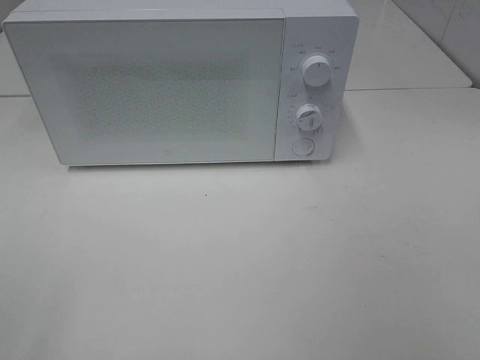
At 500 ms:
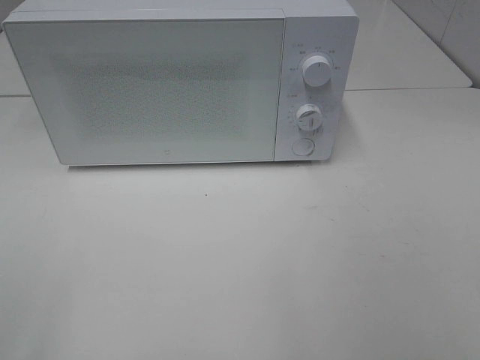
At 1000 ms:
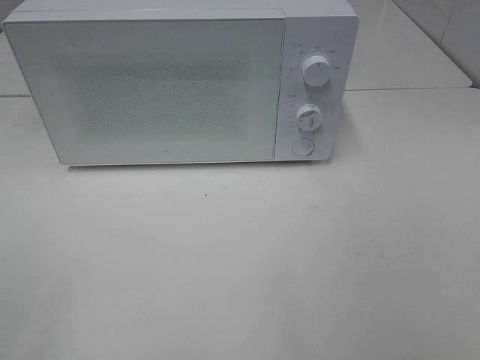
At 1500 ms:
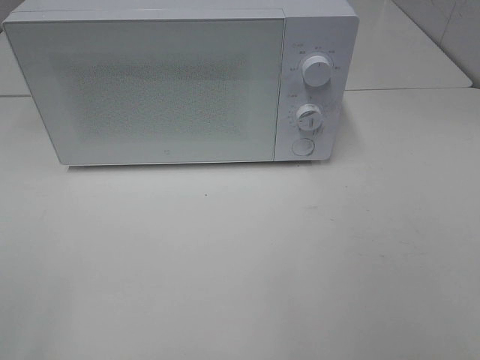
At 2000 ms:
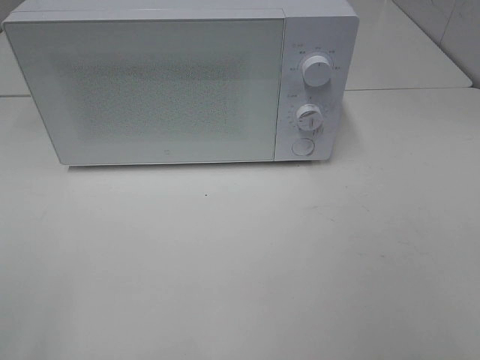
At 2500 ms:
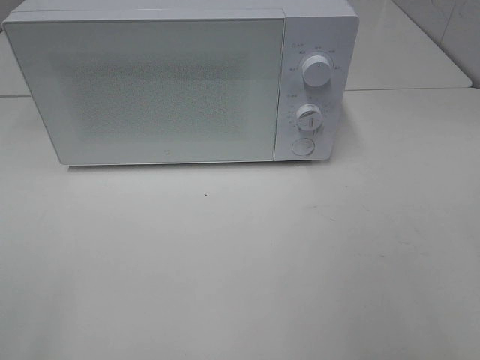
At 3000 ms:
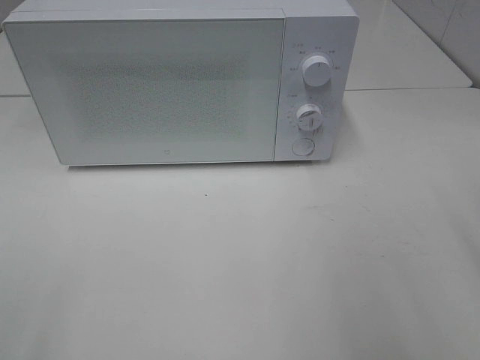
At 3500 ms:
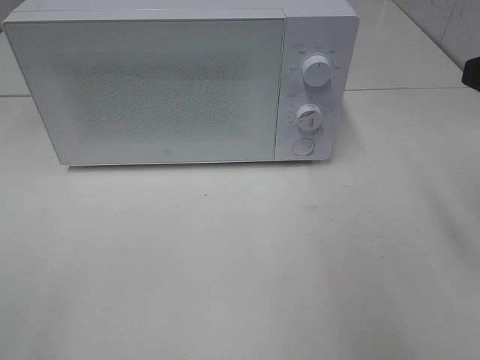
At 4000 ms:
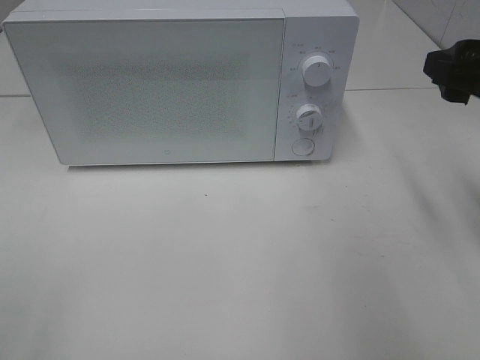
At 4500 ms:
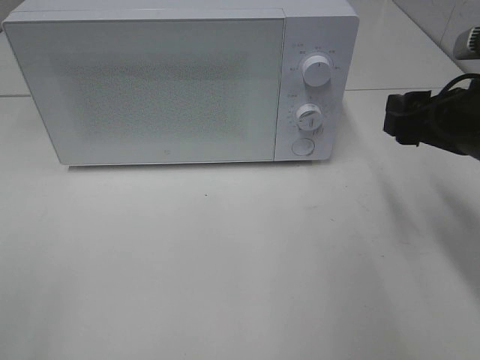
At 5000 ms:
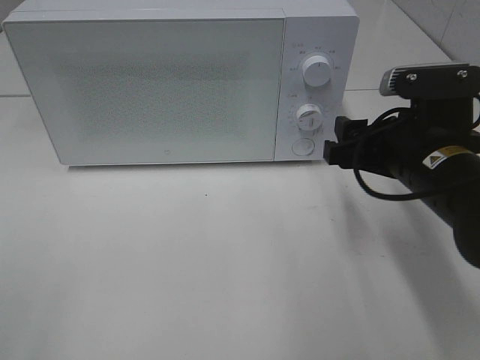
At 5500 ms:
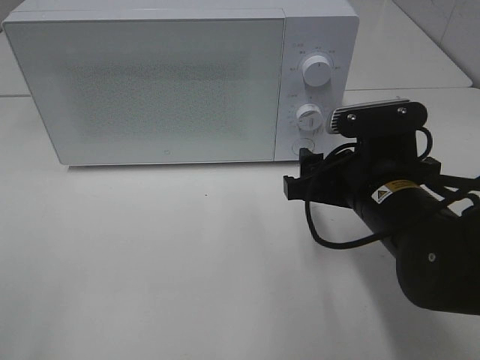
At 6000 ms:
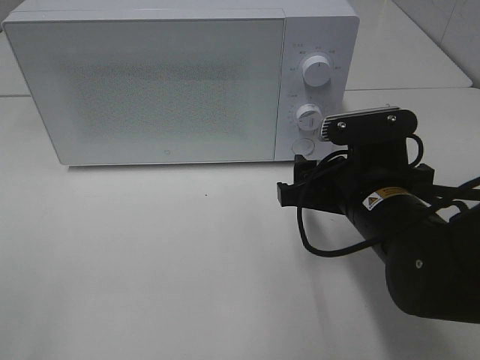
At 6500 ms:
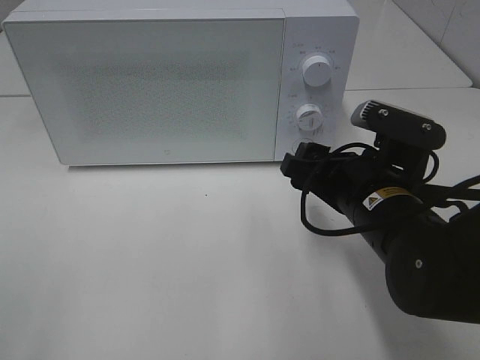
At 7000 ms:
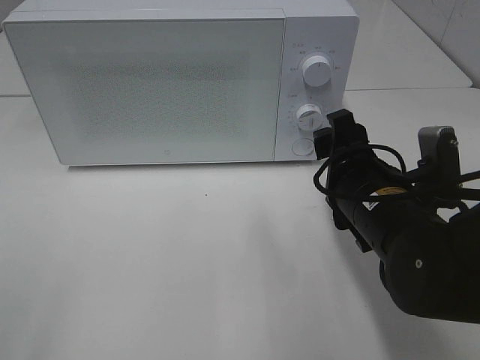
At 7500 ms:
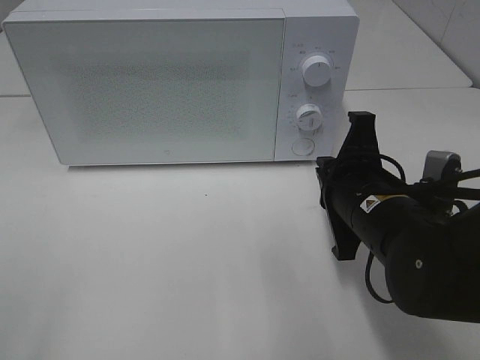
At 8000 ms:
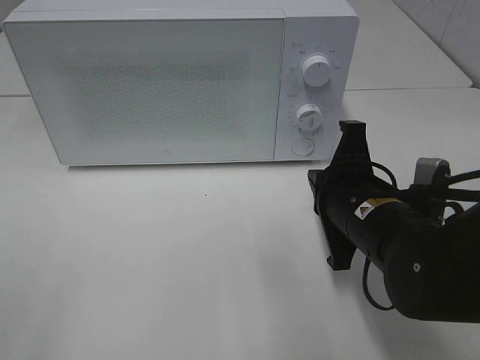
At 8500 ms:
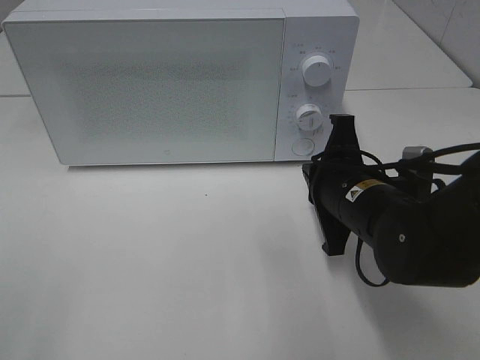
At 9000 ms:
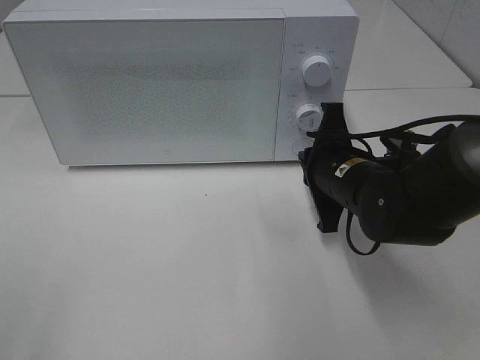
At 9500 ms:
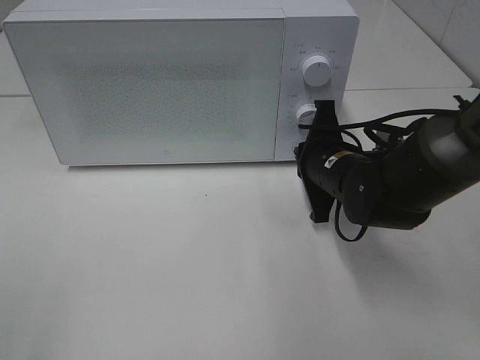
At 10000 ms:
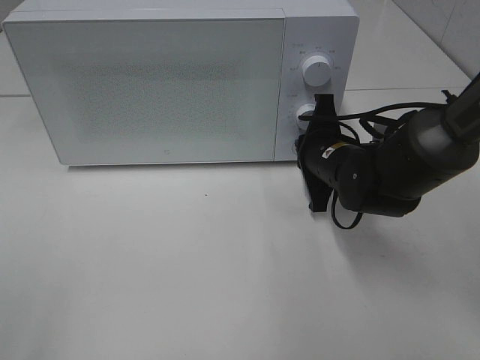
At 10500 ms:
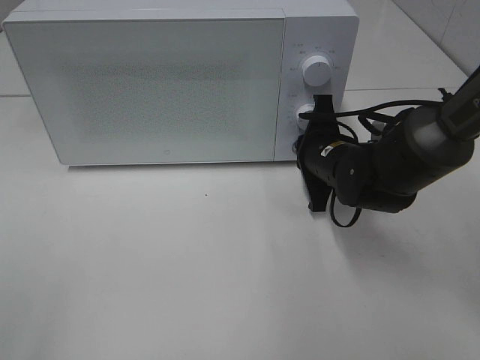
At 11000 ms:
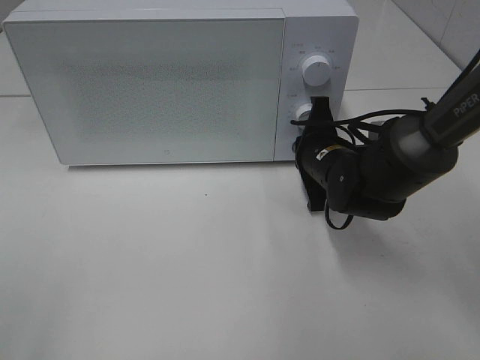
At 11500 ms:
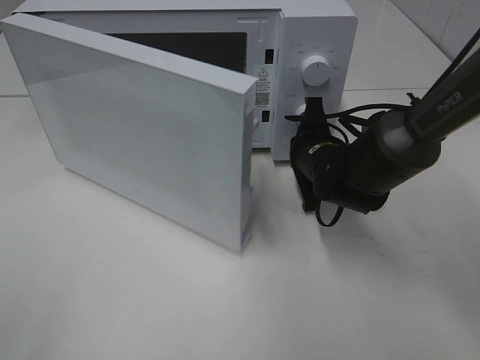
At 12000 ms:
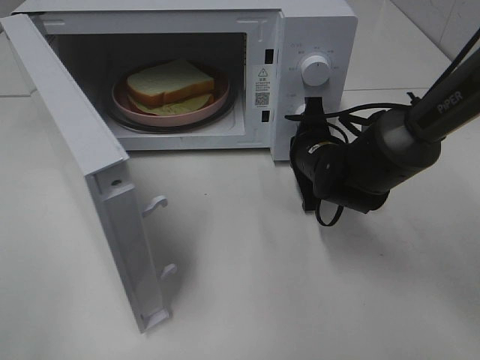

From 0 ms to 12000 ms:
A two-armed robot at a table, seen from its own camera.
Task of the whole recording: Heat Sandwich.
From 2000 ms to 4000 ms: The right gripper heads forward, covering roughly 20 cm.
From 4000 ms to 6000 ms: The right gripper is displaced to the left and downward by roughly 15 cm.
From 6000 ms to 8000 ms: The right gripper closes.
From 8000 ms to 10000 ms: The right gripper travels forward by roughly 10 cm.

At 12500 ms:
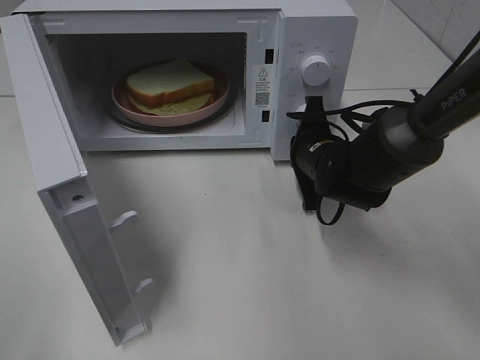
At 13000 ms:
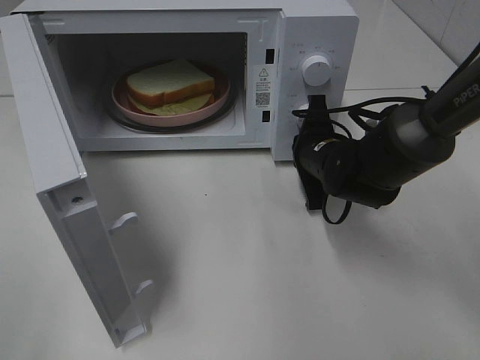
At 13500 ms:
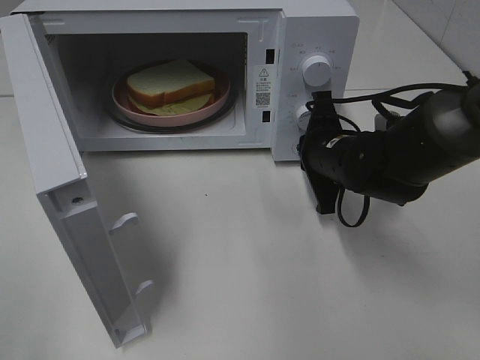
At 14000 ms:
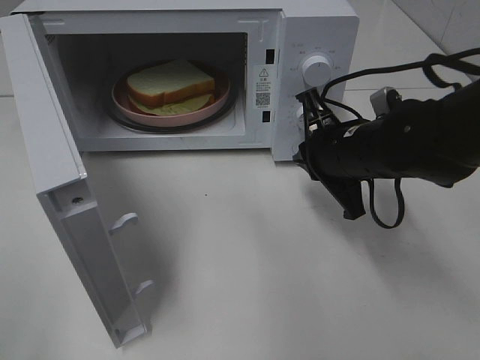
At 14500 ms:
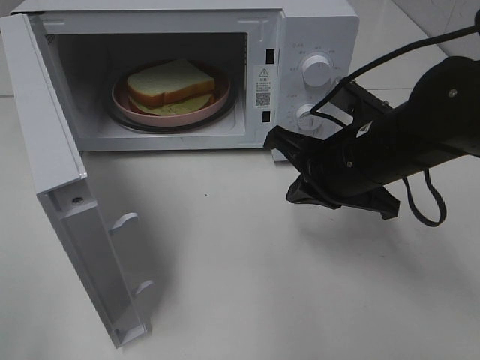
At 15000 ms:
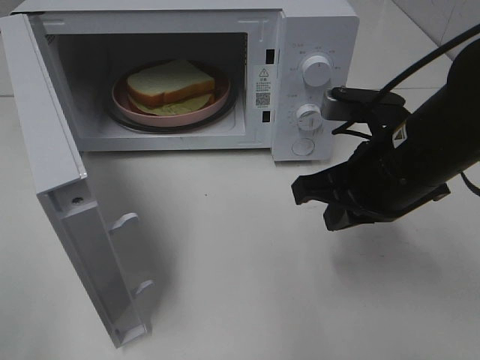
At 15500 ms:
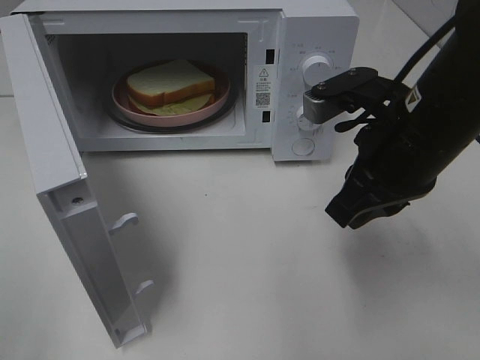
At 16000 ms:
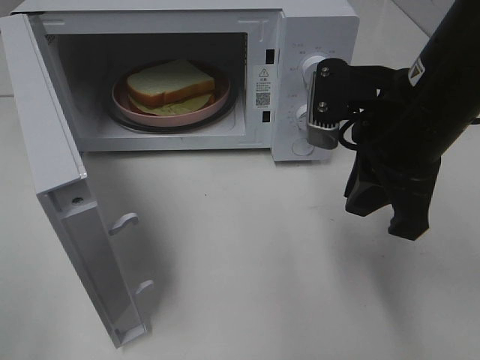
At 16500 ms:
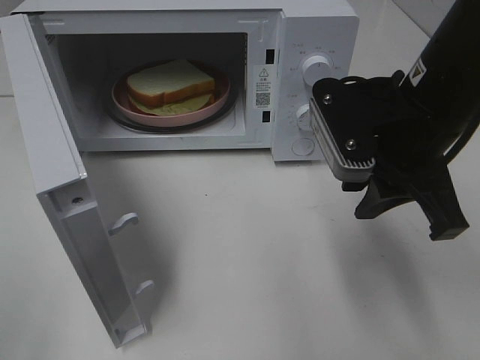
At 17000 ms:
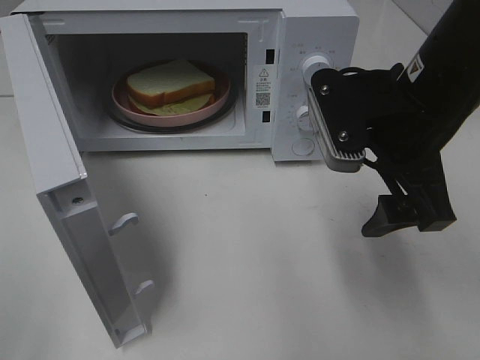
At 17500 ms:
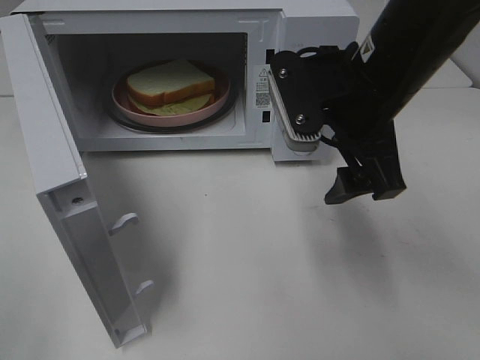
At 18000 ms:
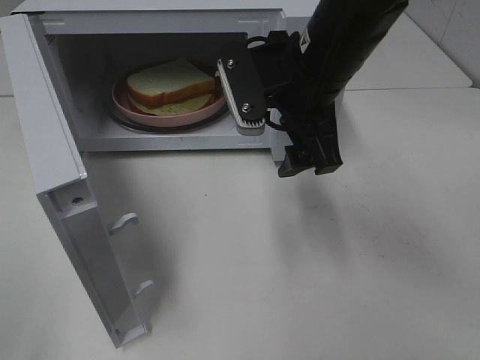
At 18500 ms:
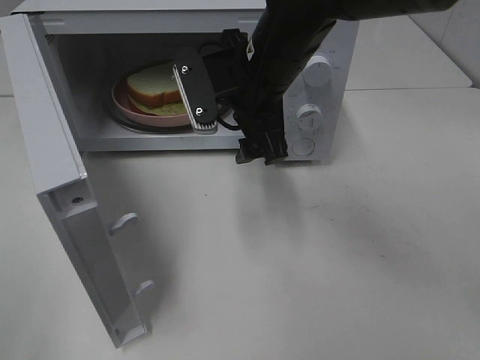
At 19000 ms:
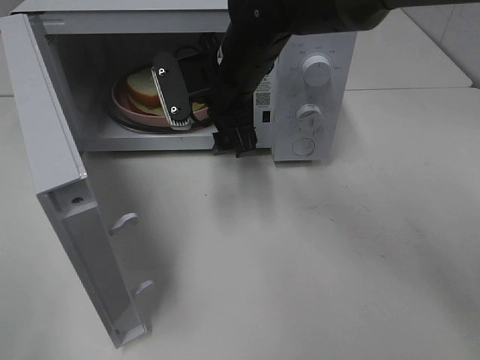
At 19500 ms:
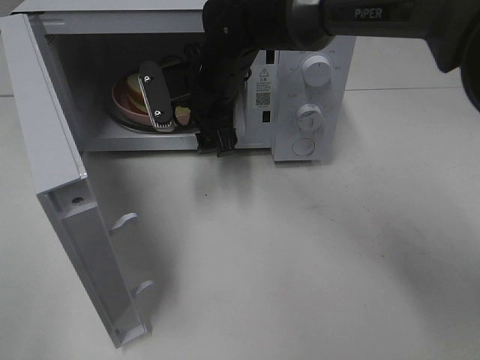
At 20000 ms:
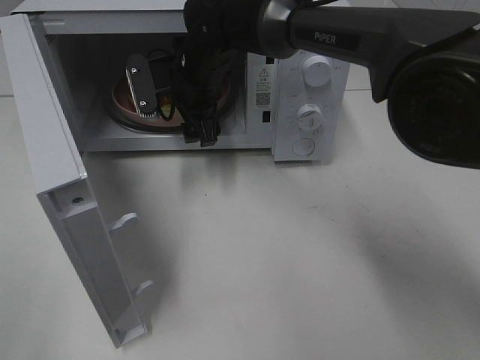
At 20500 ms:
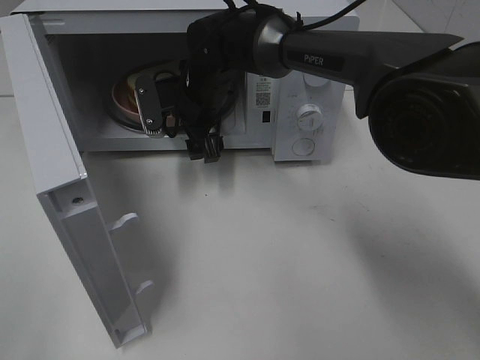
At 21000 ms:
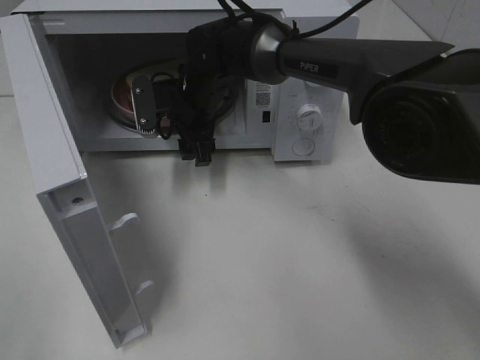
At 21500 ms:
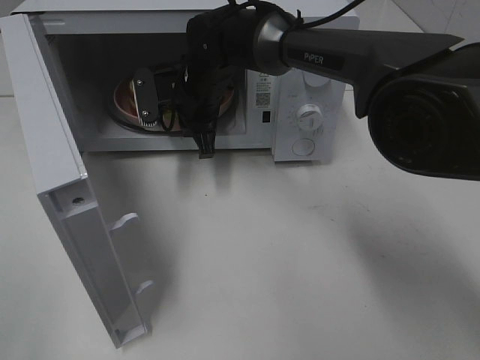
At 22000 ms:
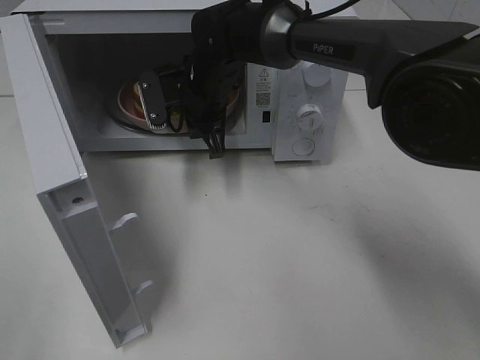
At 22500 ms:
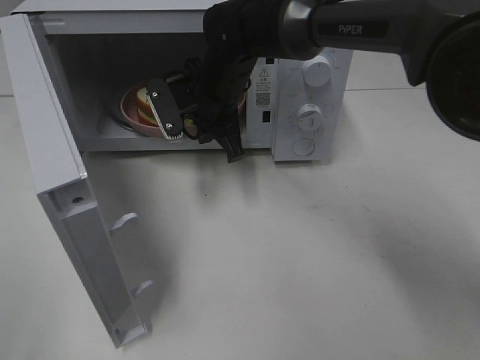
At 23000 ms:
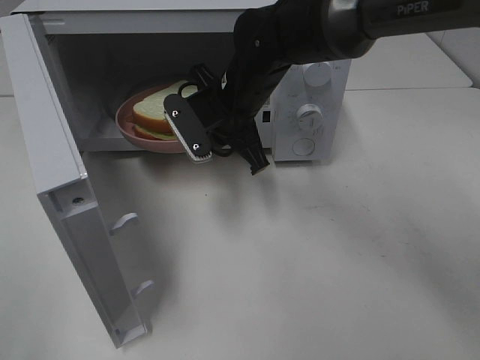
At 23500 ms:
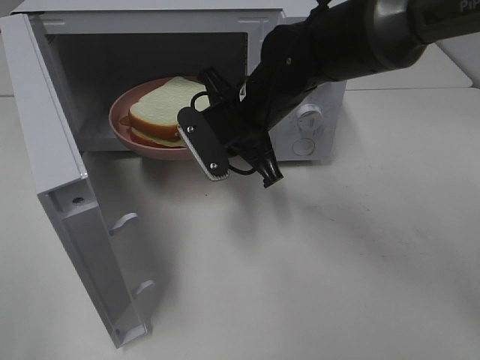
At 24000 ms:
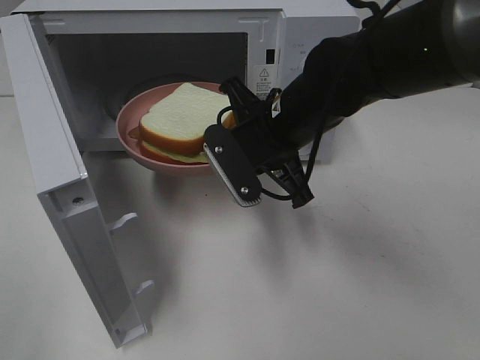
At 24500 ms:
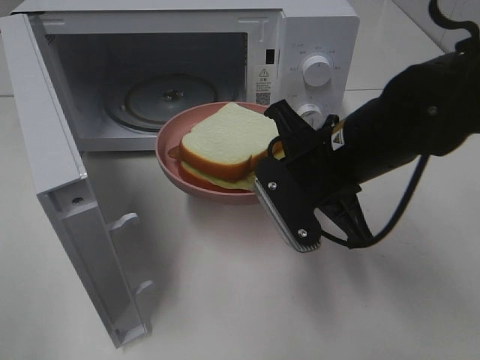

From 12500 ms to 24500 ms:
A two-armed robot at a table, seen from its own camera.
Task of the whole recording: Heat Sandwich.
Step, from 14500 ms to 22000 ms: Right hand: grab the plate with the sandwich.
From 12500 ms to 14500 ms: The right gripper goes roughly 15 cm backward and upward.
From 14500 ms to 16500 ms: The right gripper travels upward by roughly 5 cm.
From 16500 ms to 18500 ms: The right gripper goes some 15 cm to the left and forward, and opens its fingers.
From 18500 ms to 20500 ms: The right gripper moves forward, downward and to the left, approximately 15 cm.
From 20500 ms to 22500 ms: The right gripper closes.
From 22500 ms to 24500 ms: The right gripper heads backward and to the right, covering roughly 20 cm.

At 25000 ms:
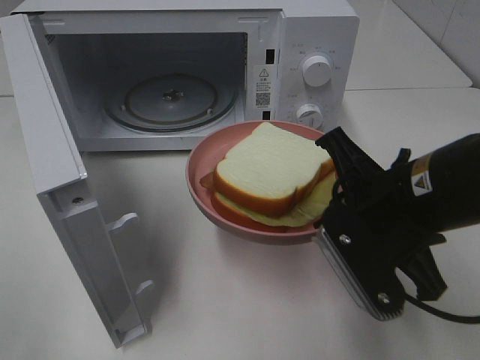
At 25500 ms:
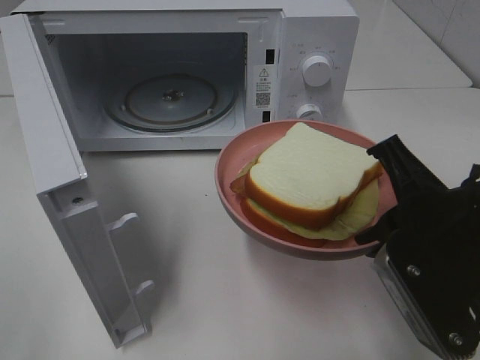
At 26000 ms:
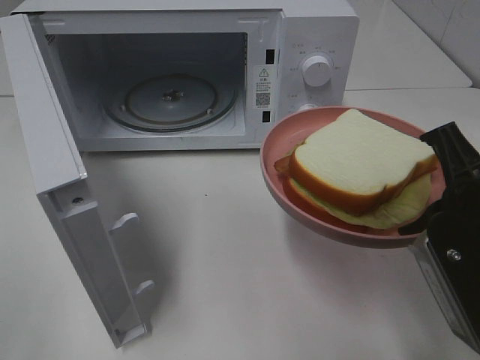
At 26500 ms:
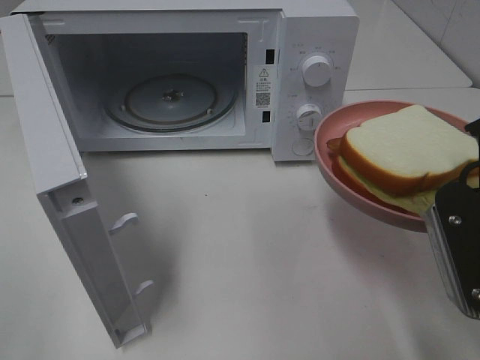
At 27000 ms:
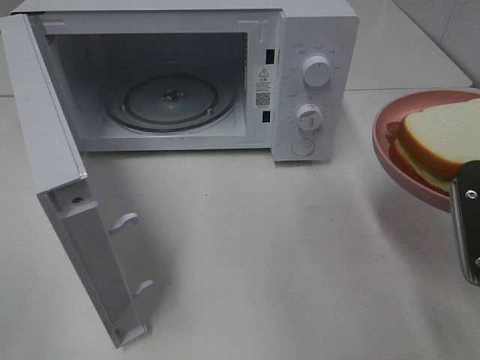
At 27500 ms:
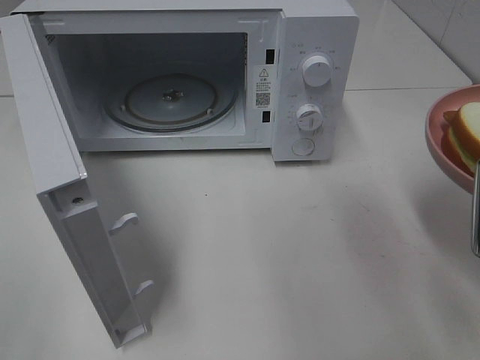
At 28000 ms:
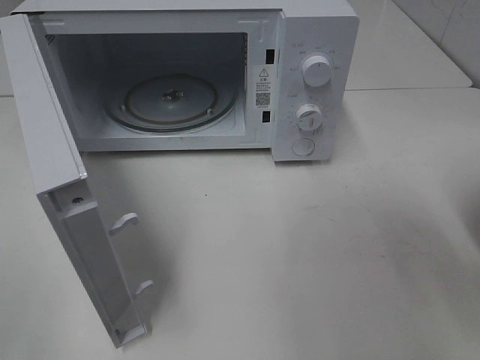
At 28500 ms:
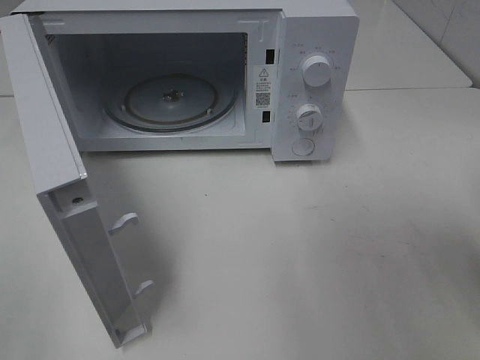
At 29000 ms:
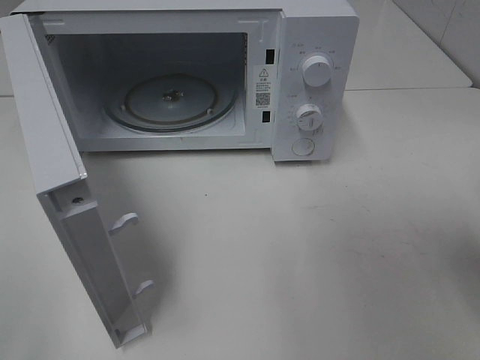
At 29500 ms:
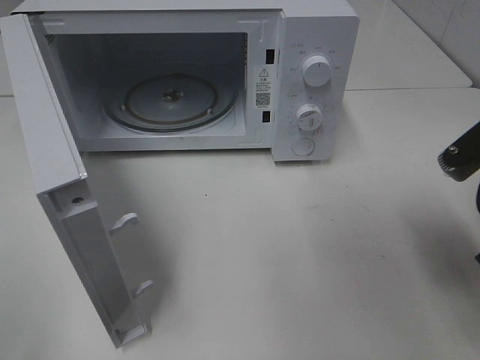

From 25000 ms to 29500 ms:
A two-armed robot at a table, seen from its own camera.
Task of the whole recording: Heat Sandwich.
From 25000 ms to 27000 ms: The right gripper heads to the right, covering roughly 10 cm.
